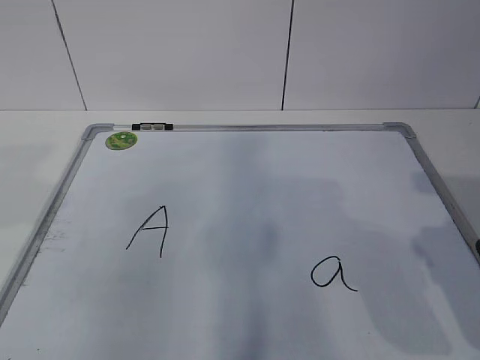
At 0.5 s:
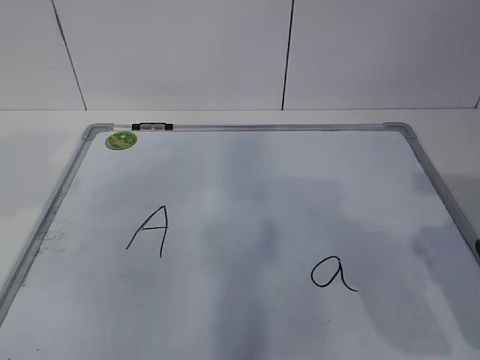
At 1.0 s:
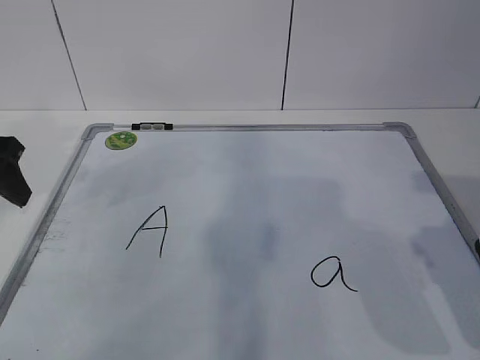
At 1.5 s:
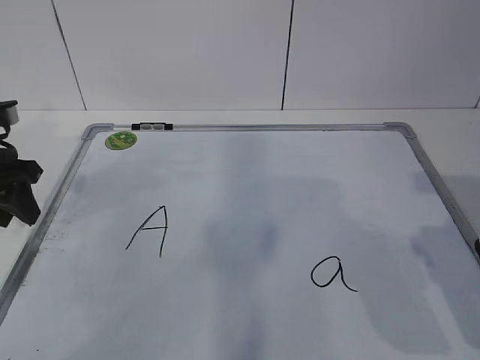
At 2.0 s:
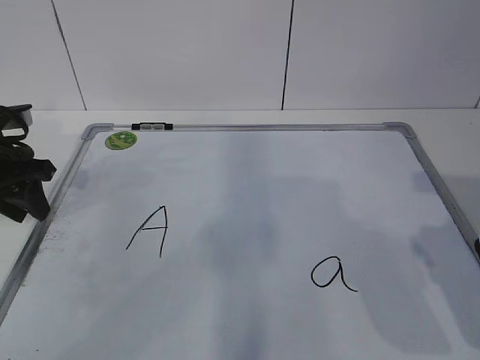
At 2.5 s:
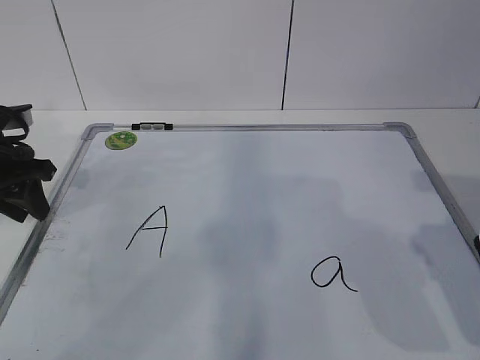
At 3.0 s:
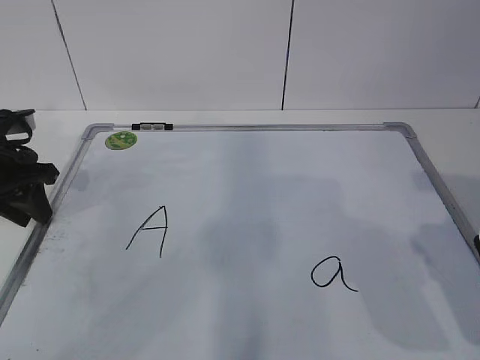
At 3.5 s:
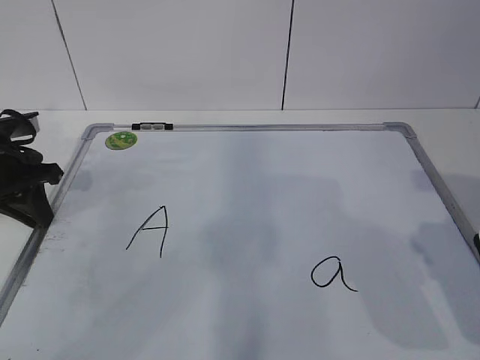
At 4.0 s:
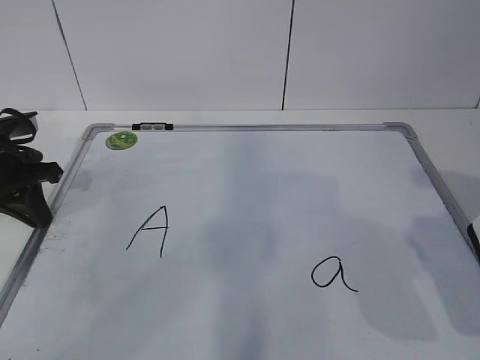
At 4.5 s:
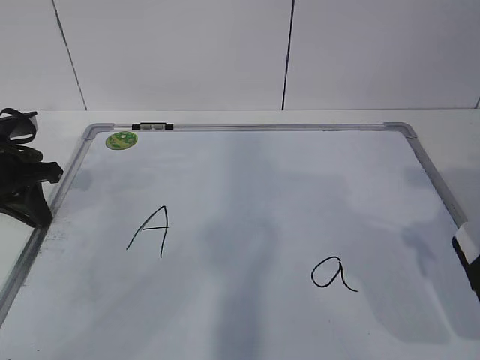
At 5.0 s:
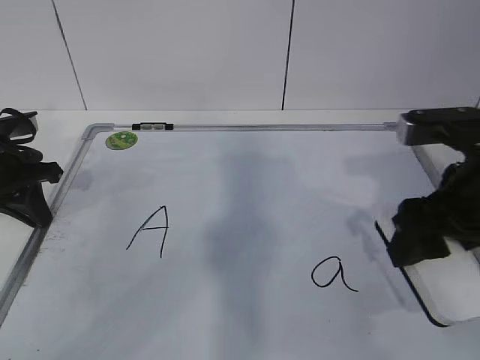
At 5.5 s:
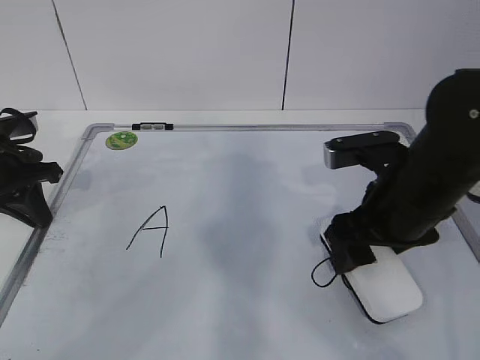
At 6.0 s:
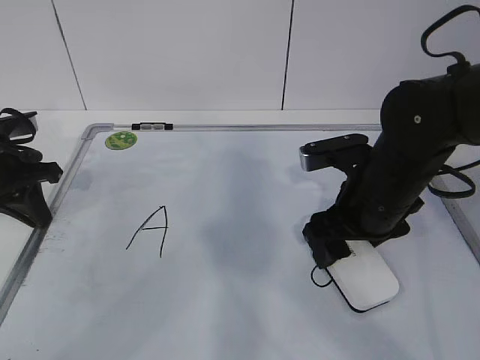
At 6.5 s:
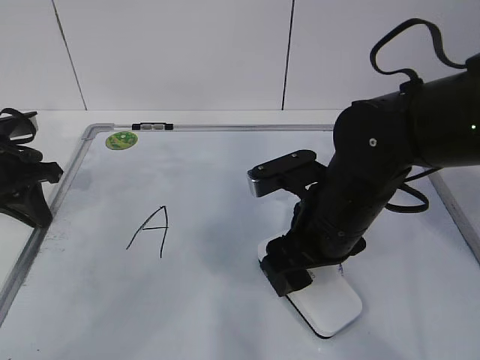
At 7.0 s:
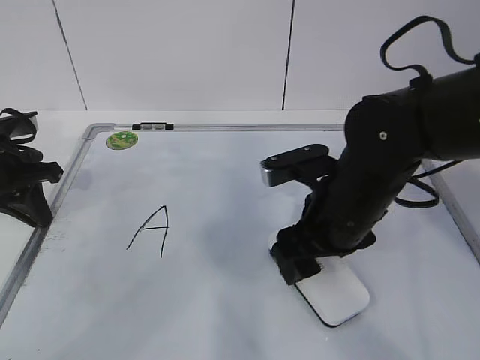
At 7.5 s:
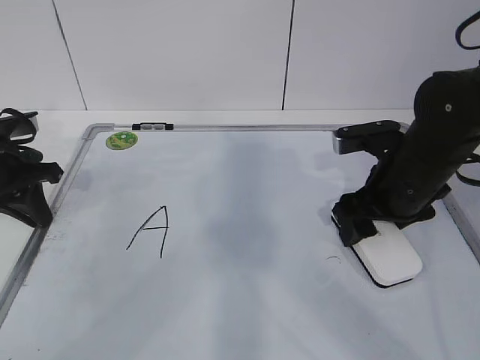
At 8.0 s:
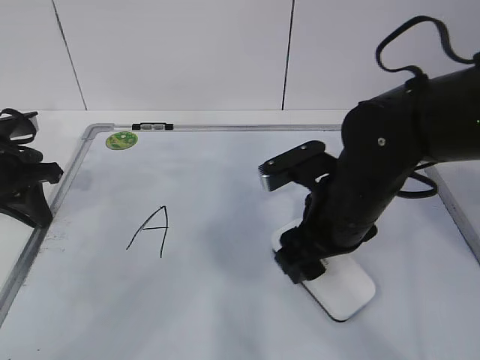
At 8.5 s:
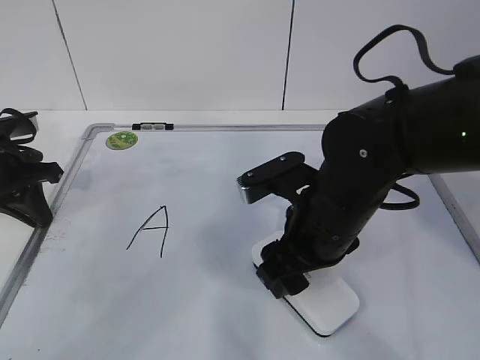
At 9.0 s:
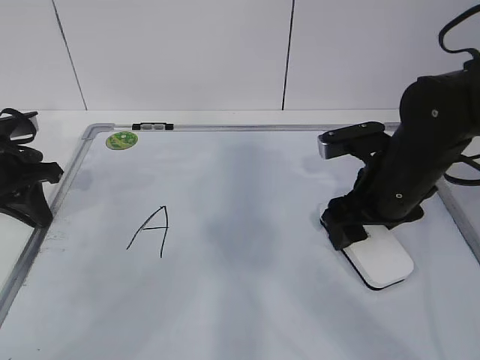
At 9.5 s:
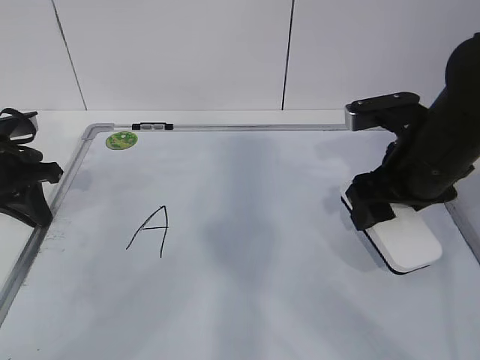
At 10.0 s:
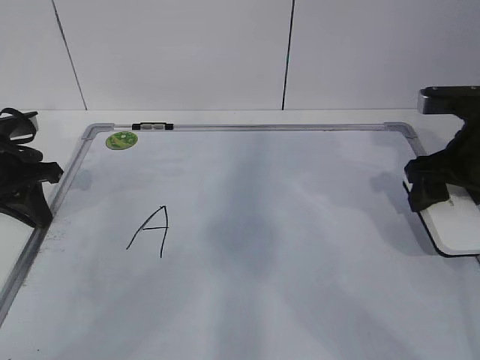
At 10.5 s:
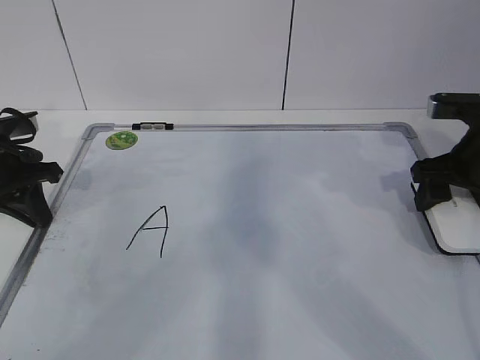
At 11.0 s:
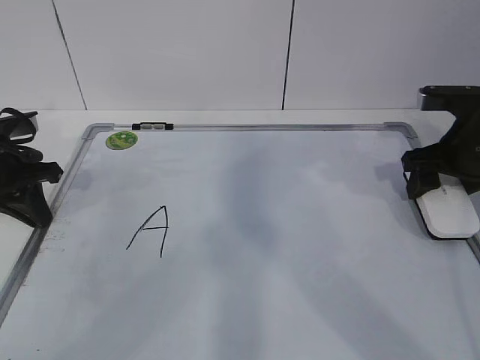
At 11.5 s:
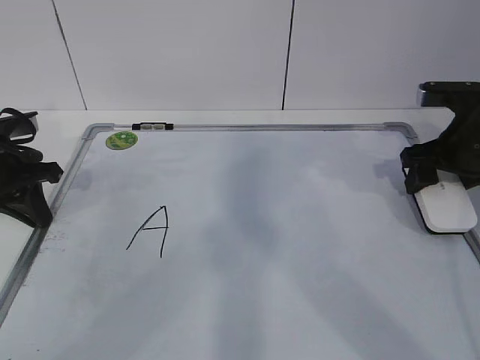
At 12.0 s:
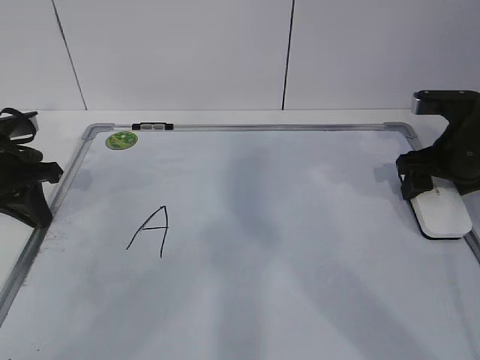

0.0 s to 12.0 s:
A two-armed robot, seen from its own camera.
Task of the whole recording: pick up the eraser on the blackboard and erase the letter "a".
Step, 1.5 to 5.5 s: Erase the letter a with your right hand.
Step, 6.0 to 8.0 s: Put down the eraser with your right hand.
0.0 to 2.0 s: The left gripper is displaced forward and downward by approximately 25 cm, and closes.
2.0 to 4.0 s: The left gripper closes.
4.0 to 6.0 s: The right gripper heads forward, to the left and downward, covering some 20 cm.
6.0 to 8.0 s: The right gripper swings left and right, about 10 cm each way, with 2 reversals.
8.0 to 10.0 s: The right gripper heads to the right, covering approximately 15 cm.
10.0 to 12.0 s: The right gripper ends up about 5 cm from where it was.

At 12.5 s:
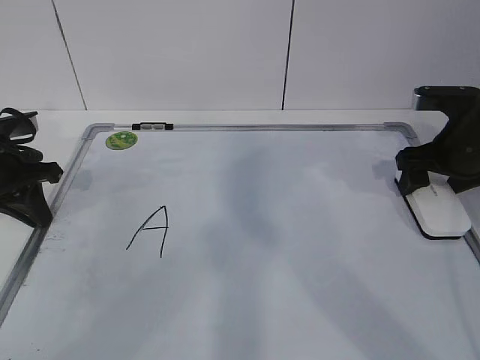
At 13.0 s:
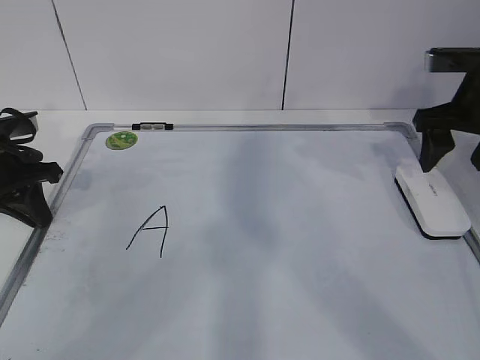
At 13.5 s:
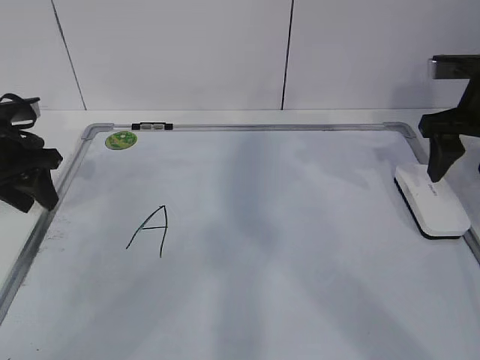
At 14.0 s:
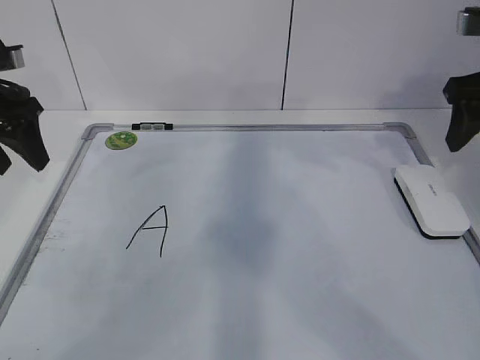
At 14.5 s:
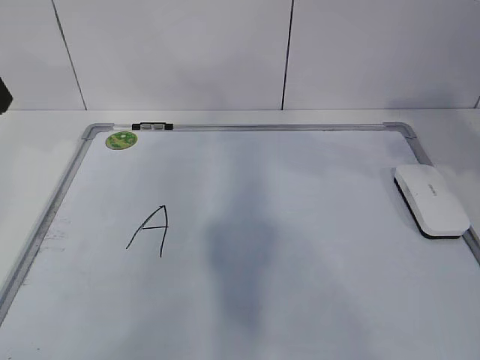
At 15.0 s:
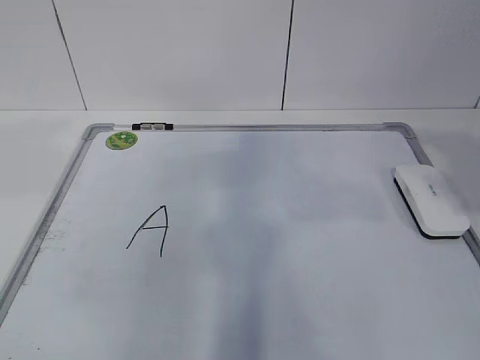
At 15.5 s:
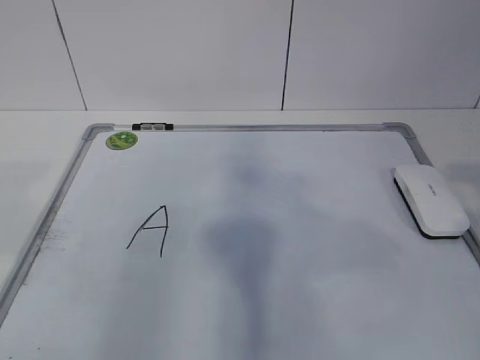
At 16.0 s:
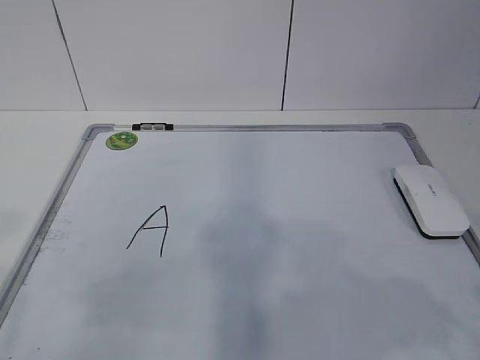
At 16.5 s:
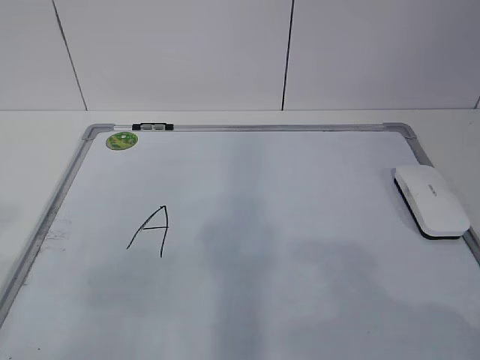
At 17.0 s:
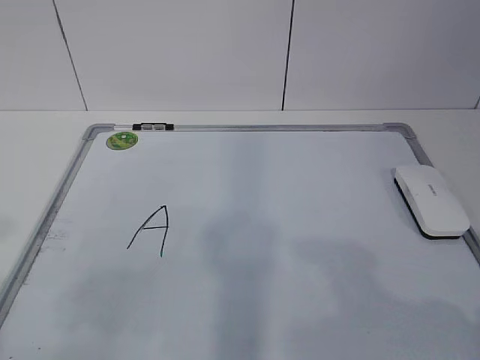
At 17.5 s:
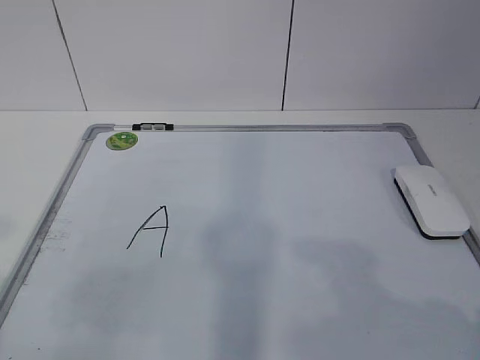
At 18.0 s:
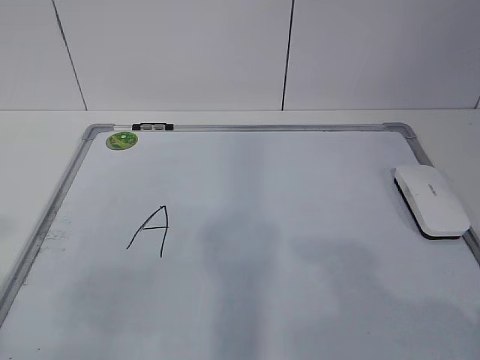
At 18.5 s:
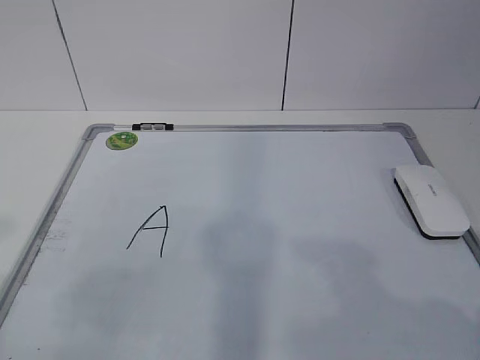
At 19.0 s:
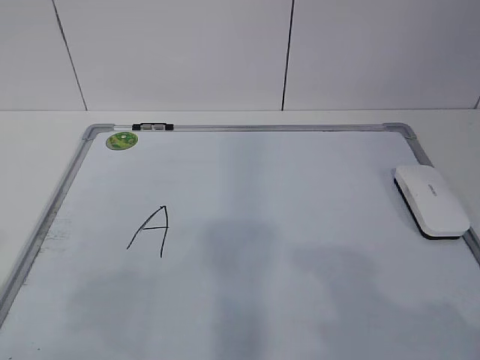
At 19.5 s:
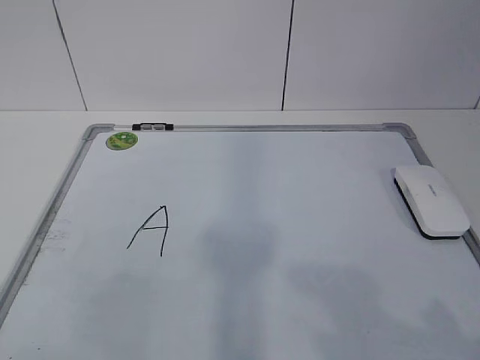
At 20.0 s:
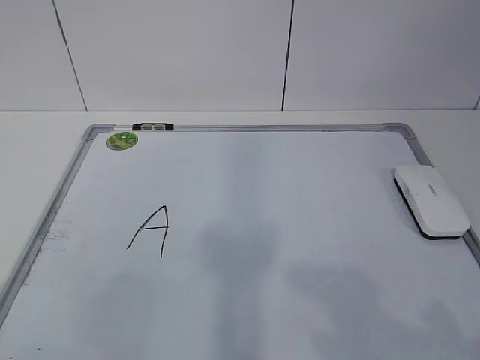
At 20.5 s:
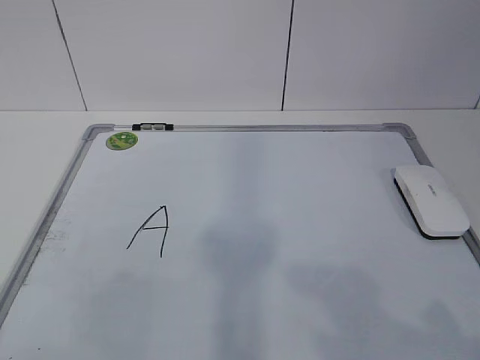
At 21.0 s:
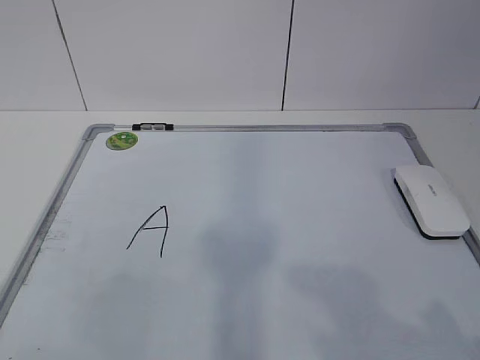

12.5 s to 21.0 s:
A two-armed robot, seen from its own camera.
Task of the whole recording: pick up the eraser on the blackboard and erase the letter "a".
12.5 to 14.5 s: The right gripper shifts some 20 cm upward and backward, and closes up. Meanwhile the left gripper is displaced upward by roughly 20 cm, and opens up.
14.5 to 16.5 s: The right gripper moves backward, about 25 cm.

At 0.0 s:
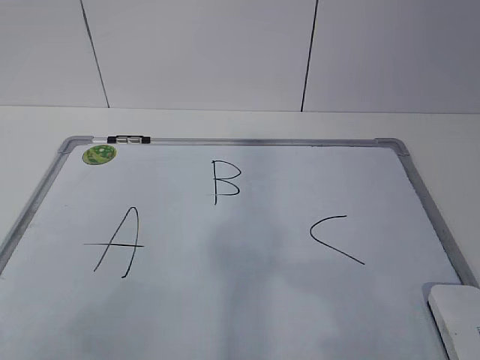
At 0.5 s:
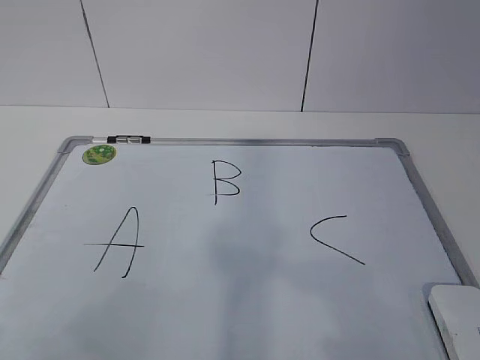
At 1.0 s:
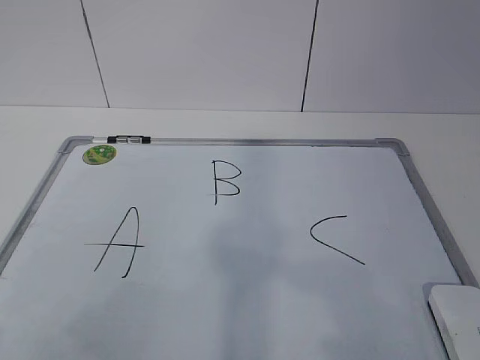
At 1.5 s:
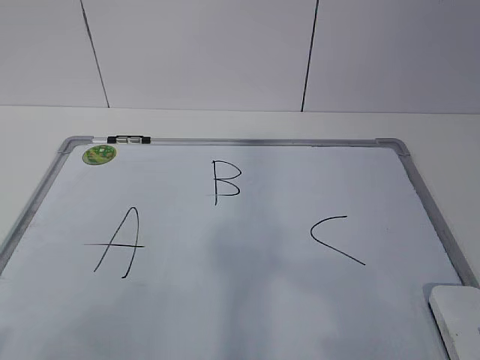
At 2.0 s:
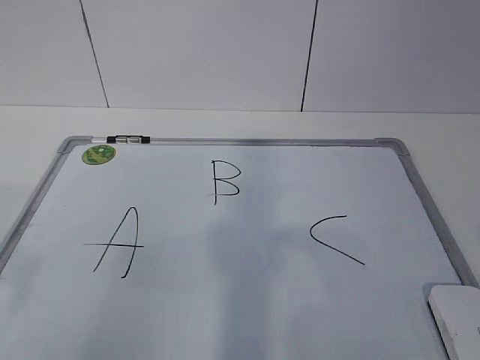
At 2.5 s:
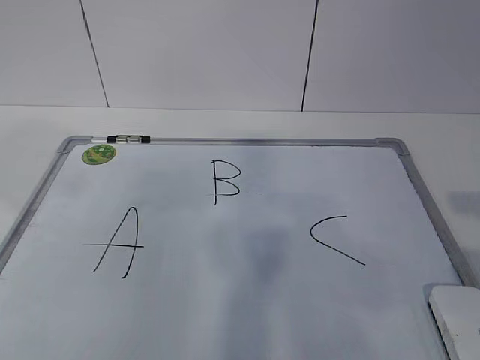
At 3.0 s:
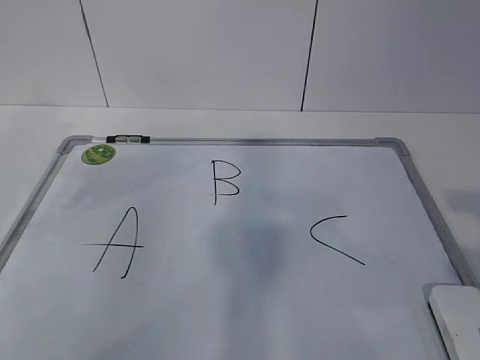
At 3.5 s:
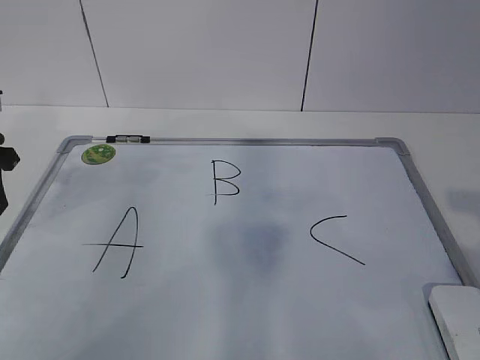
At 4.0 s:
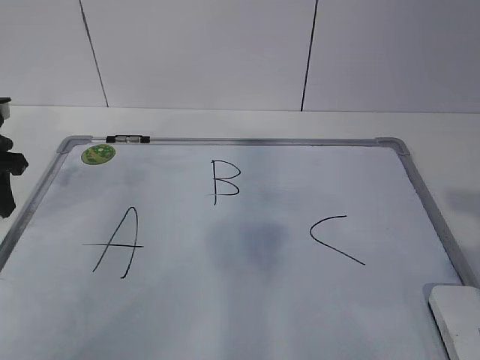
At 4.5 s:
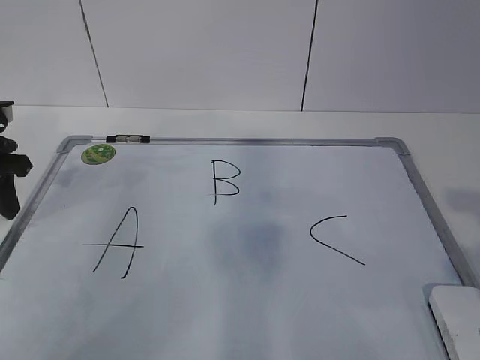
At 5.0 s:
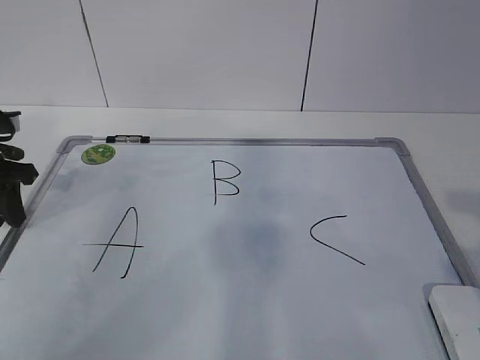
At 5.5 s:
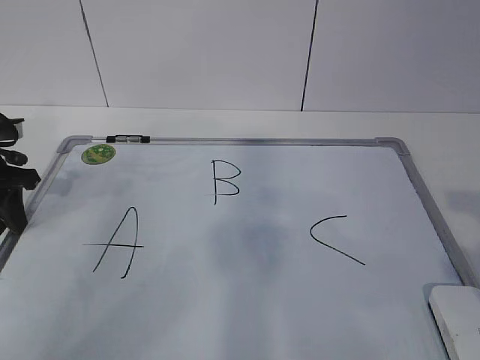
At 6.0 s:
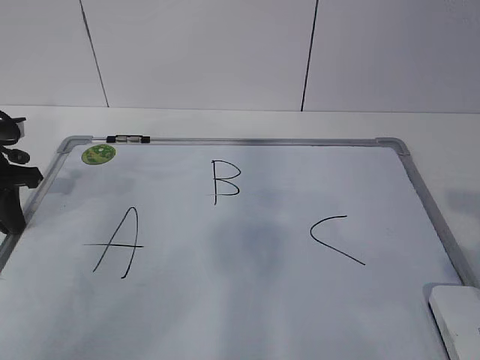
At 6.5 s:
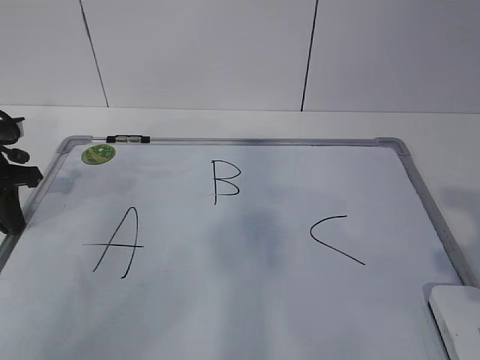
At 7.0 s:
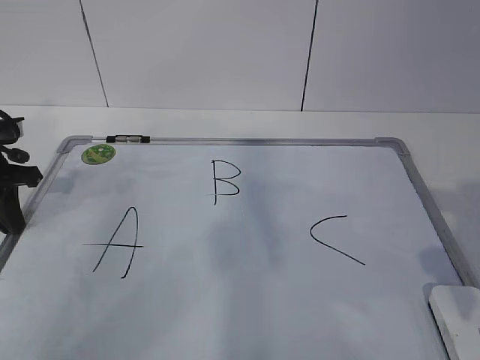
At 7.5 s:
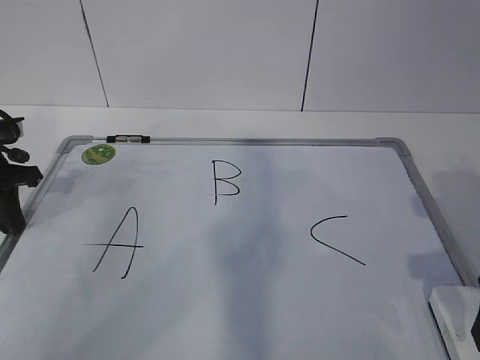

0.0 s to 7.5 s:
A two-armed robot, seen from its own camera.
Task of the whole recording: pick up the eraser on the blackboard and erase the letter "B".
Step, 0.0 to 5.0 s: Hold the drawing board steady with your left hand.
2.0 to 4.0 s: The left gripper heads forward and downward, covering roughly 30 cm.
4.0 to 5.5 s: The grippers make only small movements.
5.5 to 7.5 s: The left gripper closes. Meanwhile the right gripper travels forward and downward by roughly 15 cm, and opens its fingers.
